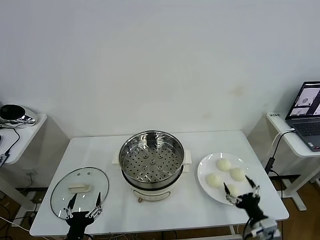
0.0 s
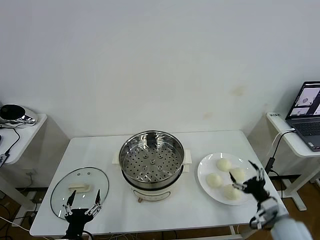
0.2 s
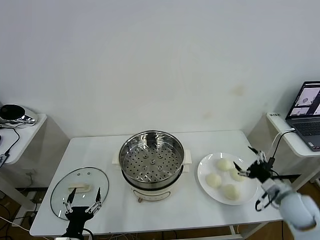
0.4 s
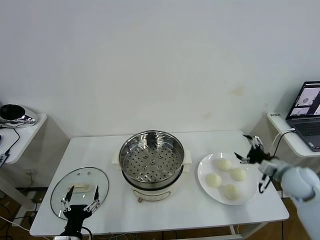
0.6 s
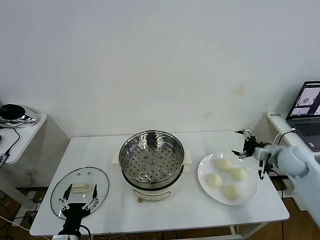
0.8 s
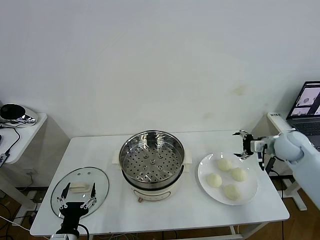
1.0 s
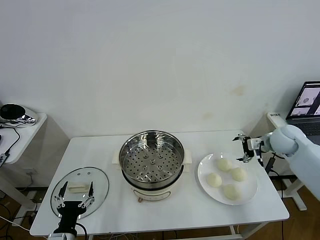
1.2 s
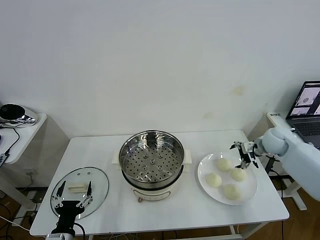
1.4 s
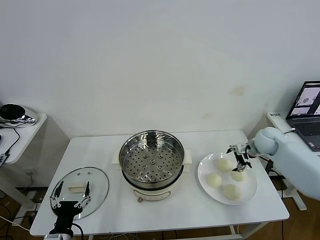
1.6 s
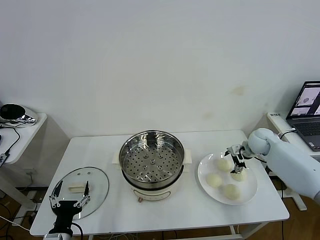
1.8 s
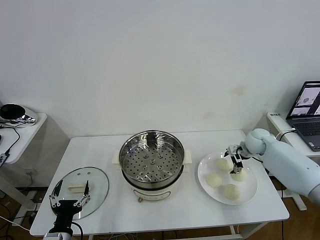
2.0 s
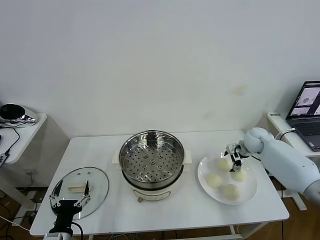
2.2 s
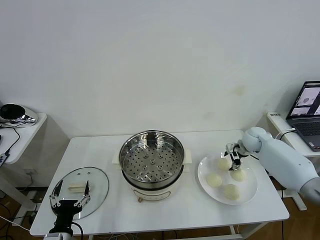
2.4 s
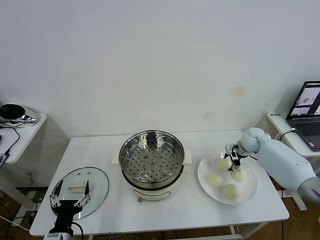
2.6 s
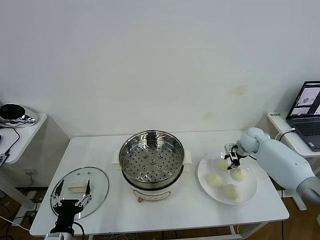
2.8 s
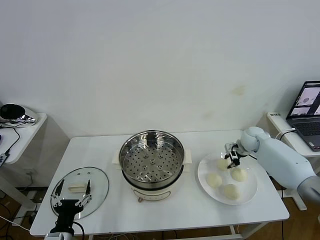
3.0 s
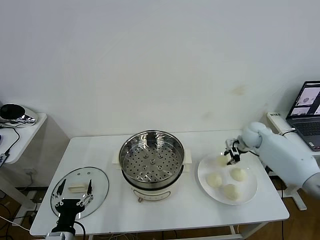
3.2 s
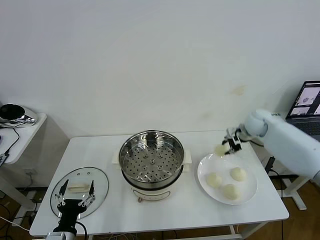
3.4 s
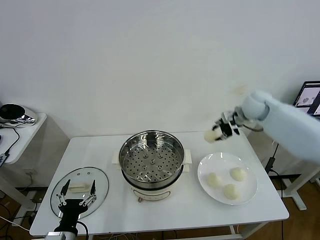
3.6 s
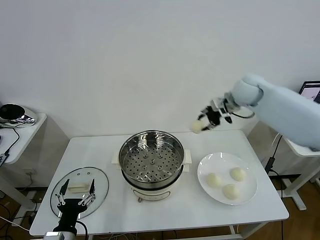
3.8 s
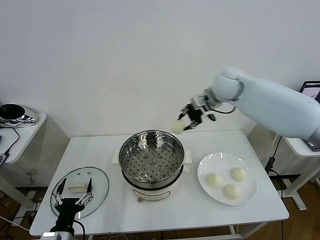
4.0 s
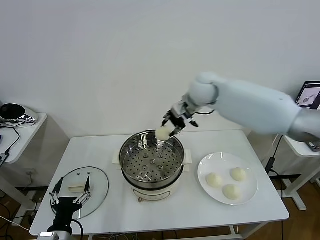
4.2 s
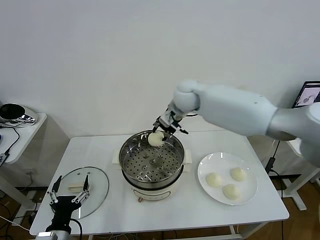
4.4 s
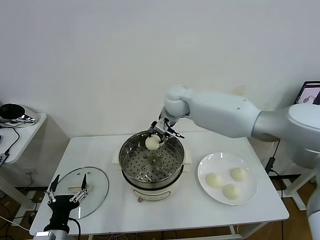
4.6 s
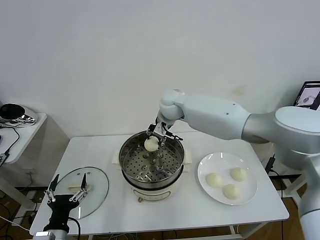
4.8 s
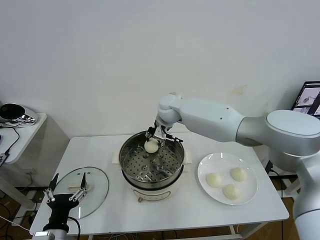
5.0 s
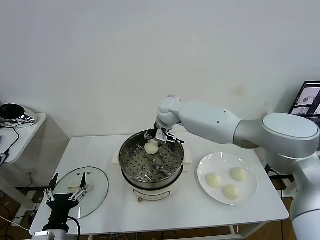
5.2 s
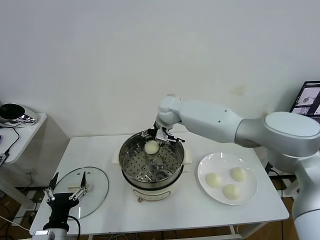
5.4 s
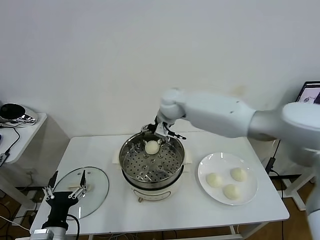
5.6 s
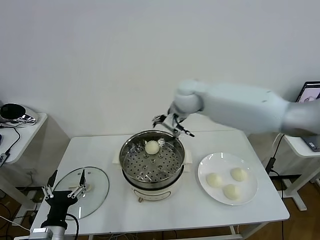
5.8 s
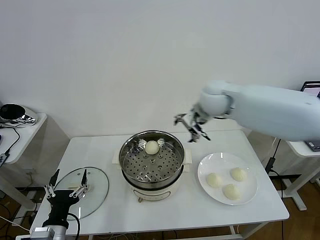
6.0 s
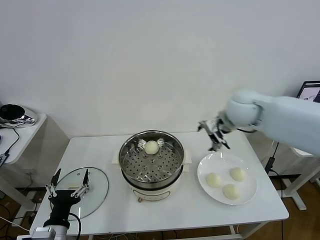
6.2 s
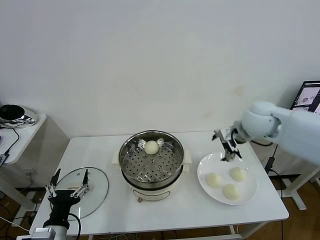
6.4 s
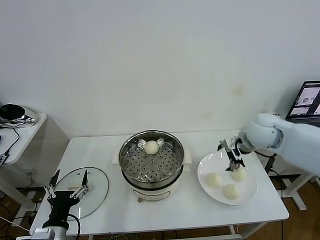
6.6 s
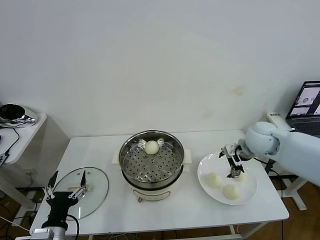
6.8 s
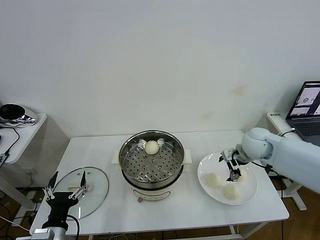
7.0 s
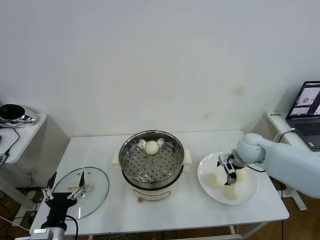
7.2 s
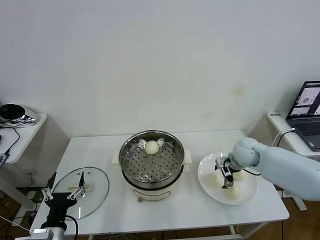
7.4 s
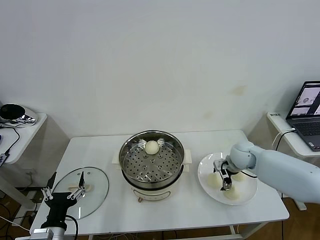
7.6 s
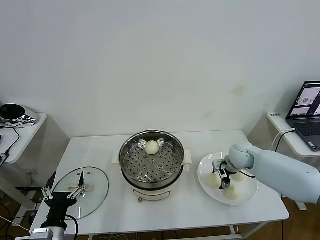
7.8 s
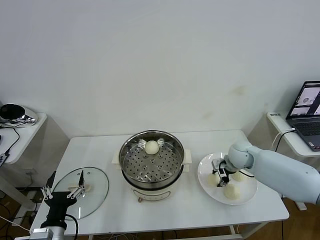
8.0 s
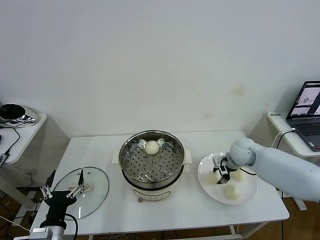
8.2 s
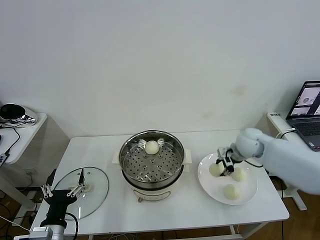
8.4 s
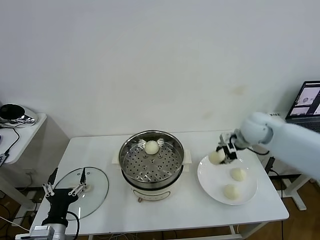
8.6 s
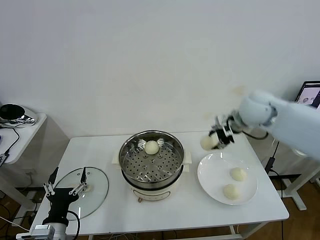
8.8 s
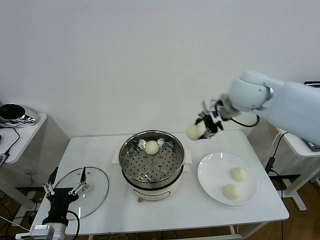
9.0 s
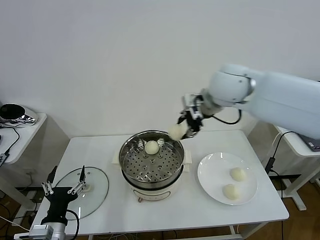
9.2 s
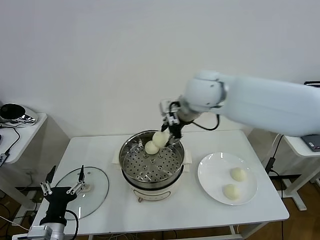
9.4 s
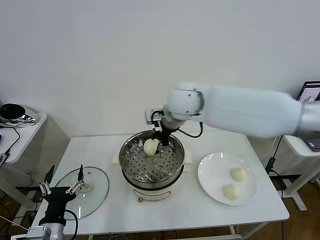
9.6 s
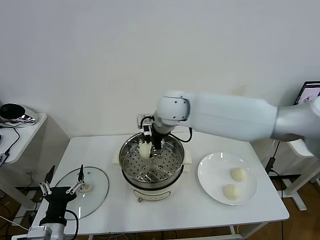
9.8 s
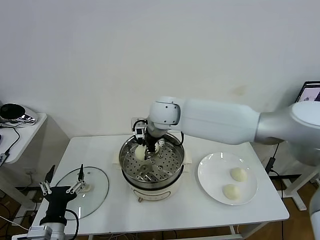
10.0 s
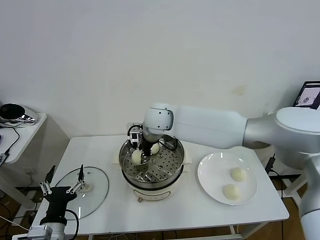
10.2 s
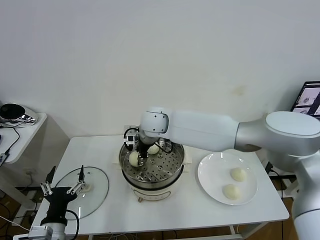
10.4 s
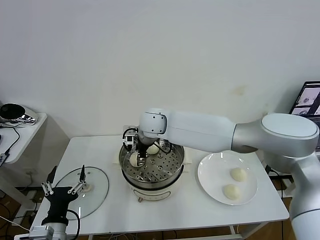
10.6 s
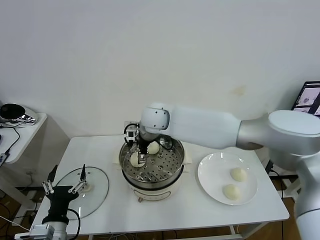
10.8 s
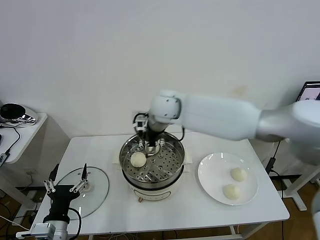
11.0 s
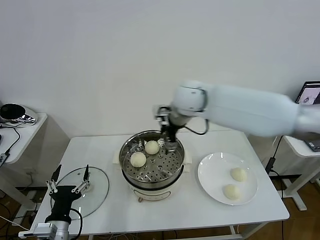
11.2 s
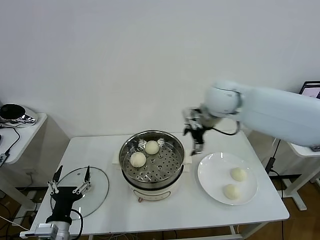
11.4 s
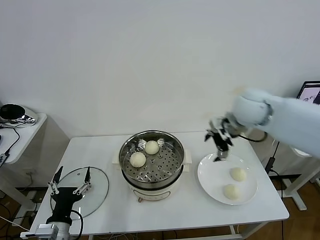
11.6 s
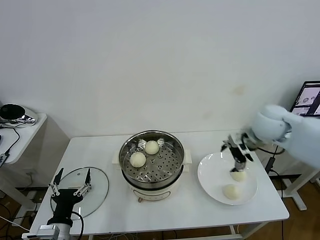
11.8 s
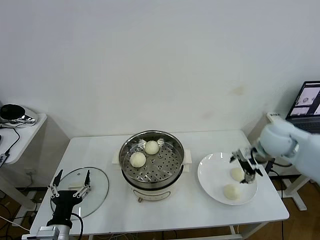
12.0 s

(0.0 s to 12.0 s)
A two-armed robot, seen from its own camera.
Task of the whole recording: take steamed baozi put them in steamer then cover it.
Step, 0.0 s - 2.6 s: Grasp the baozi in the plate with right gripper.
Step, 2.8 s - 5.4 s: Place the baozi on the steamer with right gripper.
Step, 5.6 s - 8.0 s: Grasp the baozi in the plate with right gripper.
Step, 8.4 s - 10.8 s: Place the baozi on the steamer with right gripper.
1.6 s - 3.0 s: The right gripper closes.
3.0 s - 4.4 s: The right gripper shifts some 35 cm to the left and upward.
4.4 s - 6.0 s: The right gripper is displaced to the right and backward by about 15 cm, and opens its fingers.
6.0 s - 7.6 s: The right gripper moves downward and to the right, about 25 cm.
7.6 s - 9.0 s: The right gripper moves upward, some 30 cm, and closes up.
9.0 s - 10.4 s: The right gripper goes about 25 cm to the left and downward.
10.4 s - 12.0 s: The right gripper travels to the right by some 35 cm, and opens its fingers.

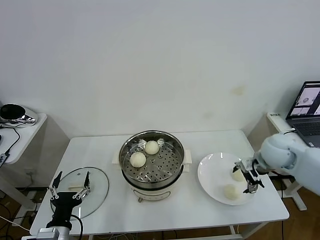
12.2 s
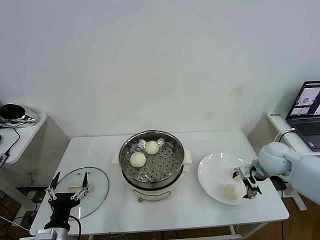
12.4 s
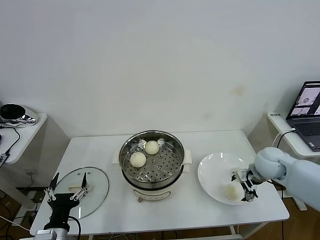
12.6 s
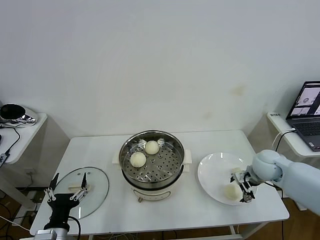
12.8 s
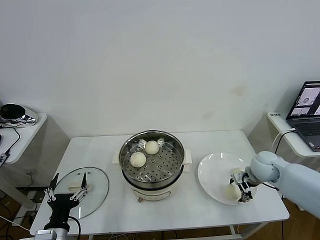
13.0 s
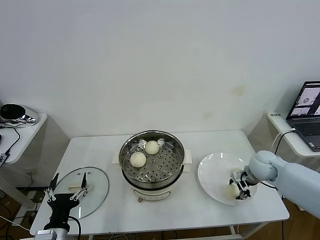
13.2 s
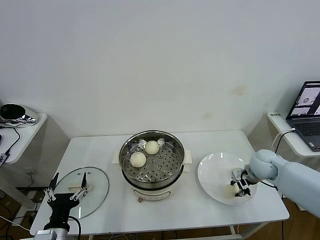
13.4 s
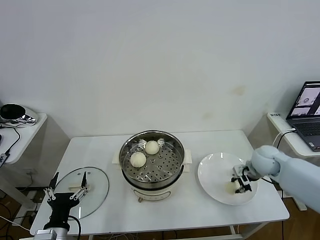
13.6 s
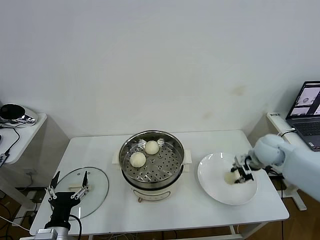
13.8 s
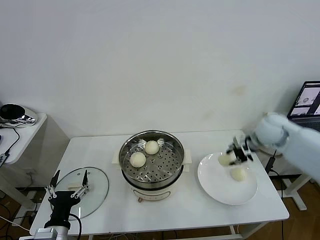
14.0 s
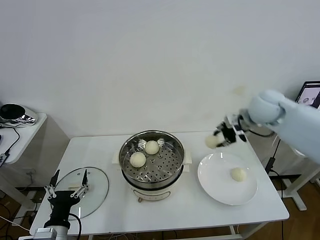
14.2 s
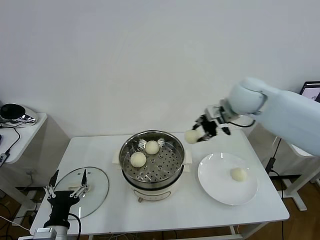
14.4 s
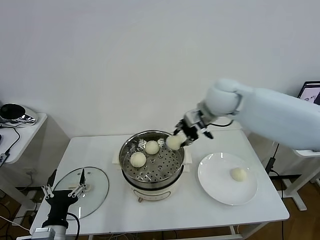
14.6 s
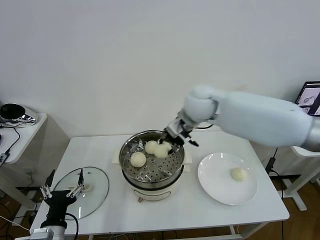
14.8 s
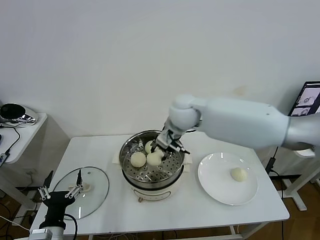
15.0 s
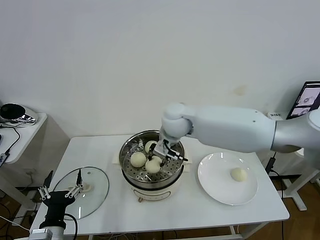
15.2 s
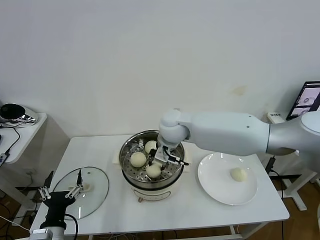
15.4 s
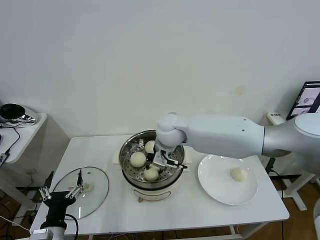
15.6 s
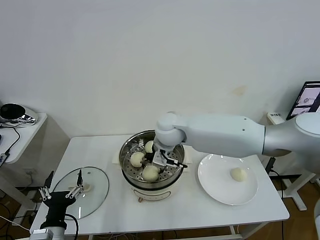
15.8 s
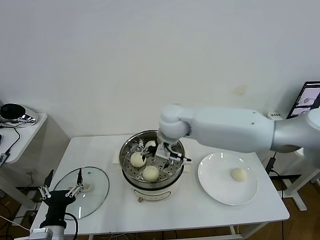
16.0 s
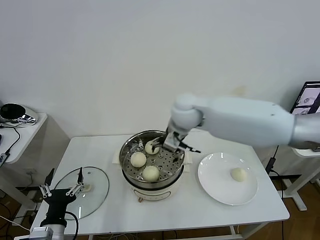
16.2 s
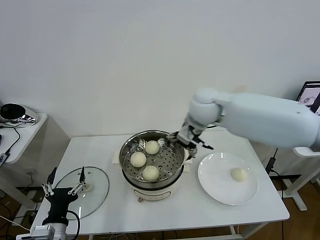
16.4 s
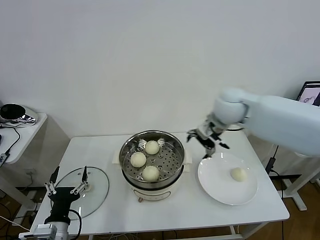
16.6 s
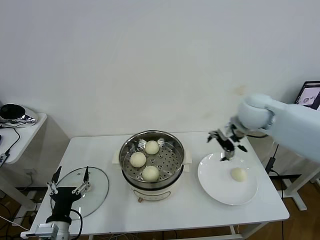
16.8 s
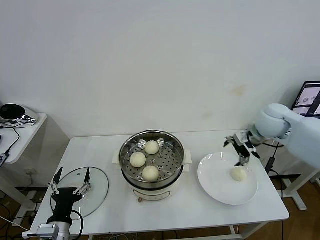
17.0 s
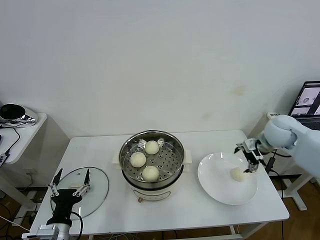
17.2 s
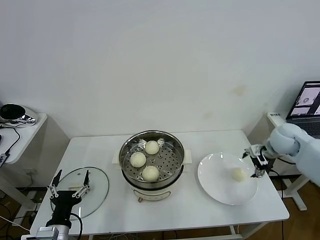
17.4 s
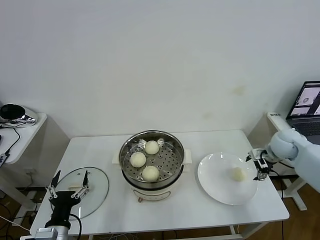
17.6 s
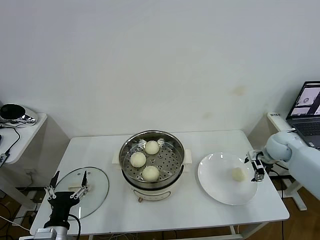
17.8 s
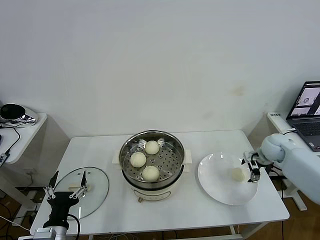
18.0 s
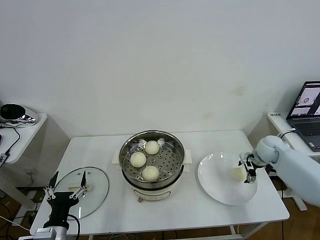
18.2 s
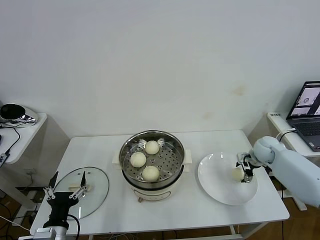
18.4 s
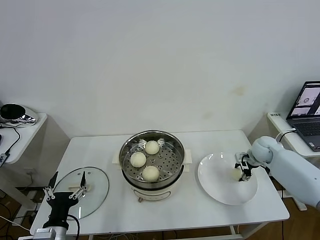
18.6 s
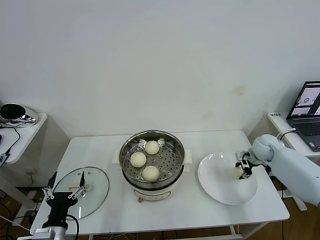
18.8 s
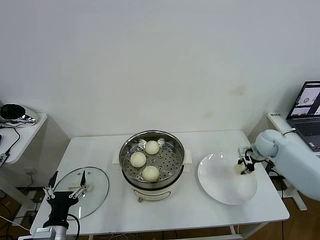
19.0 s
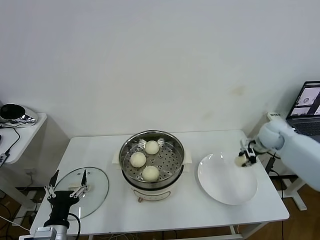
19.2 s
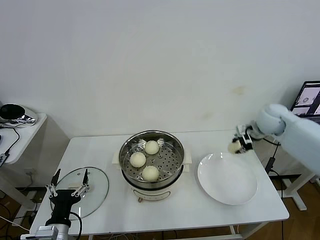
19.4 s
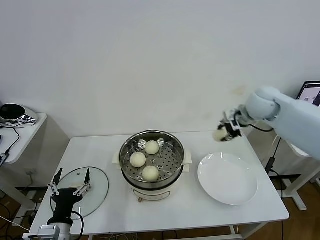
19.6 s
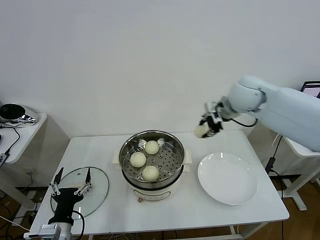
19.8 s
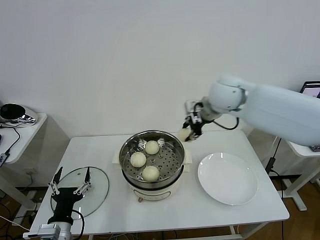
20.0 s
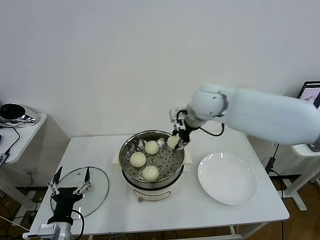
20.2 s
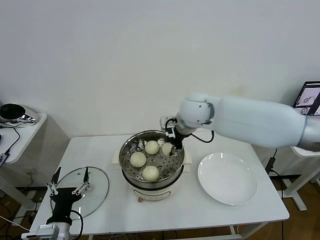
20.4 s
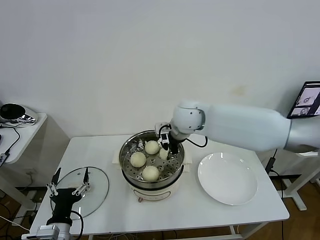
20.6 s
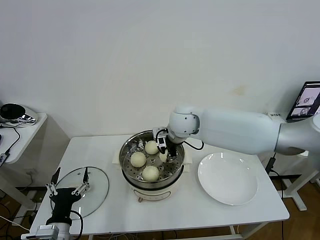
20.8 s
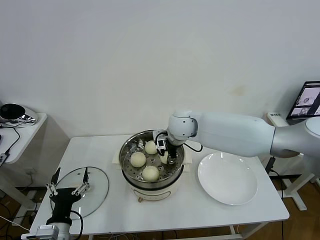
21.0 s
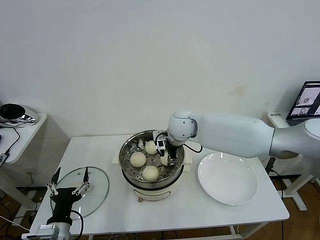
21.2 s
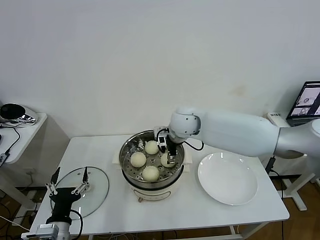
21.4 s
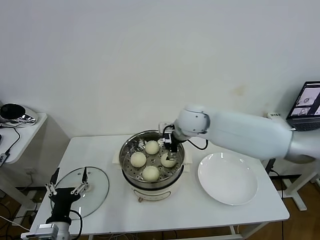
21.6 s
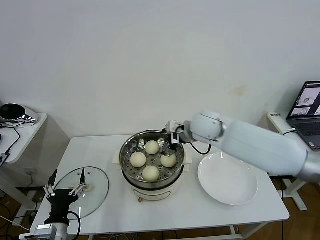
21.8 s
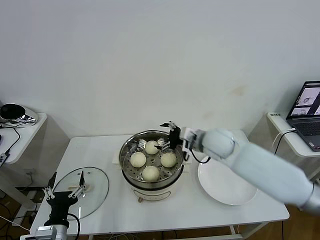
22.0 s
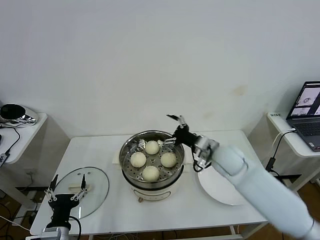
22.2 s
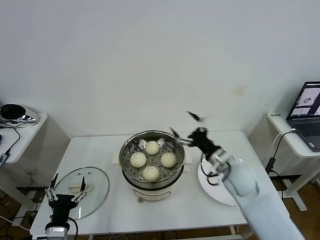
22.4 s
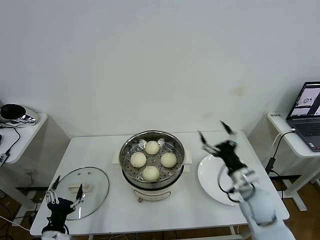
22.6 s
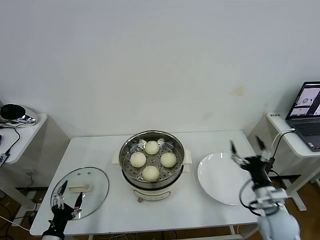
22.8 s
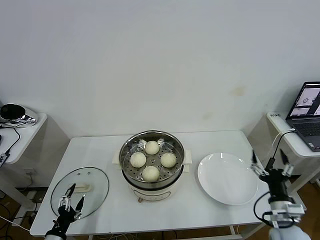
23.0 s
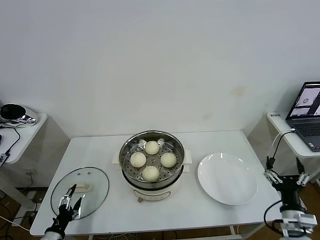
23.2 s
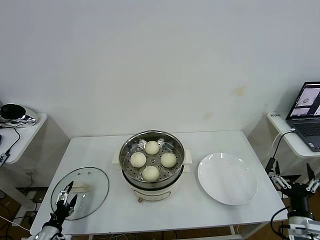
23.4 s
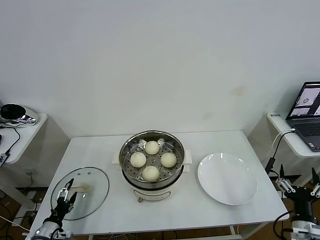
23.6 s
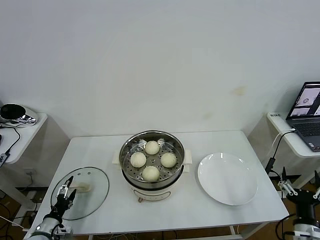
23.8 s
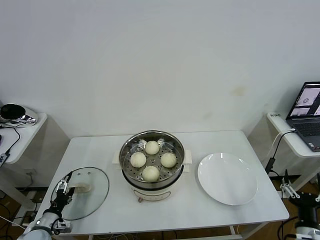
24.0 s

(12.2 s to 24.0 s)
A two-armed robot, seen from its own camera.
Task of the whole recording: take steamed baozi put them in steamer then cover it.
Step, 13.6 s - 15.8 s: Place the baozi on the steamer with right gripper.
Step, 16.0 s - 18.8 s: Grasp the baozi in the plate with right gripper.
Step, 19.0 s - 21.2 s: Place the baozi on the steamer with right gripper.
12.2 s - 13.6 s: The right gripper goes approximately 5 cm downward, and closes up.
13.6 s - 15.2 s: The right gripper shifts approximately 30 cm to the left.
15.2 s - 16.6 s: The right gripper is displaced to the right by some 15 cm, and opens.
16.6 s - 18.2 s: The right gripper goes about 30 cm downward and to the right.
18.2 s - 19.6 s: The right gripper goes approximately 25 cm upward and to the left, and closes its fingers.
19.6 s - 21.0 s: The right gripper heads to the left, covering about 20 cm.
21.0 s - 22.6 s: The right gripper heads to the right, backward and downward, covering approximately 35 cm, and opens its fingers; the left gripper moves downward, some 5 cm.
22.6 s - 24.0 s: The right gripper is displaced backward and to the right by some 20 cm; the left gripper moves to the left, forward and downward, roughly 15 cm.
